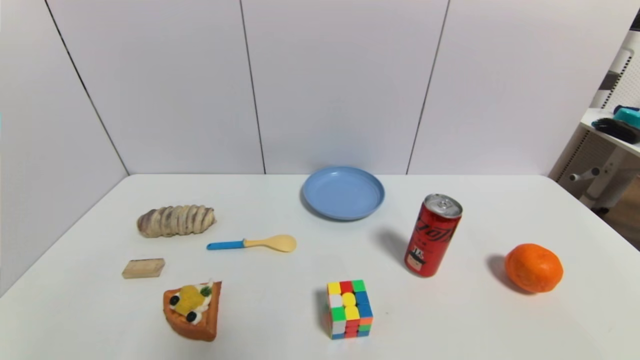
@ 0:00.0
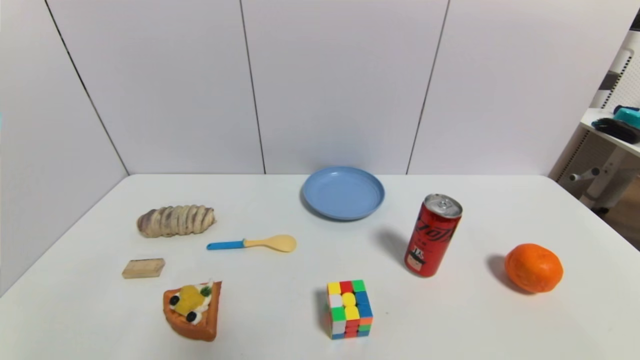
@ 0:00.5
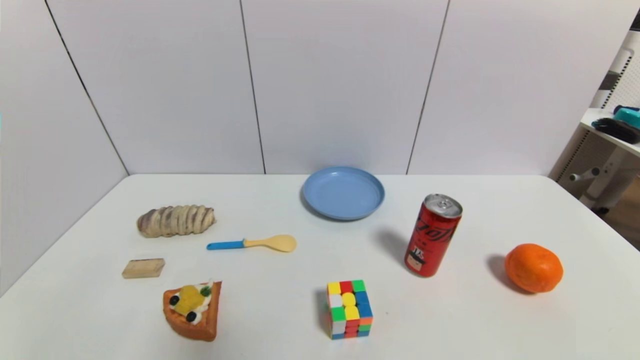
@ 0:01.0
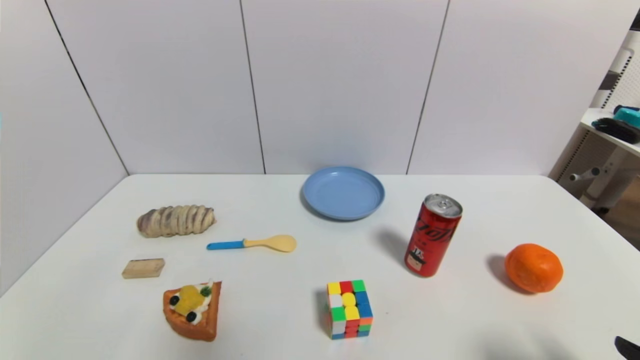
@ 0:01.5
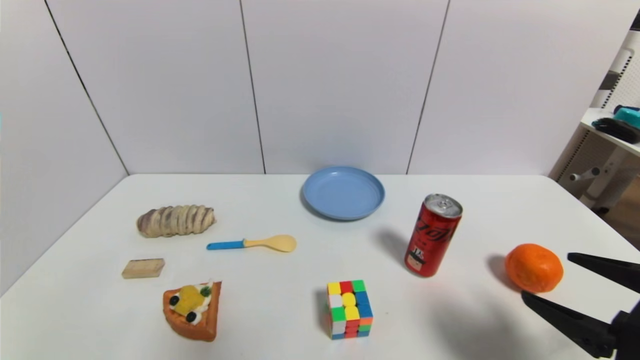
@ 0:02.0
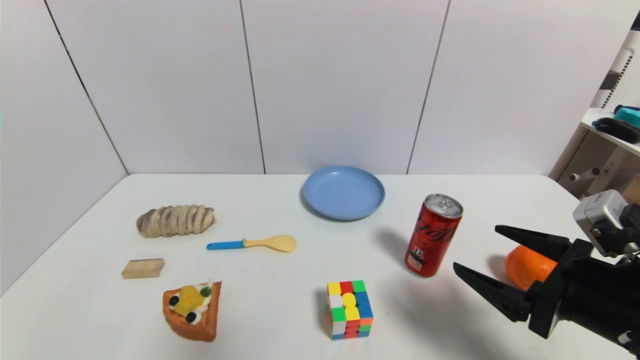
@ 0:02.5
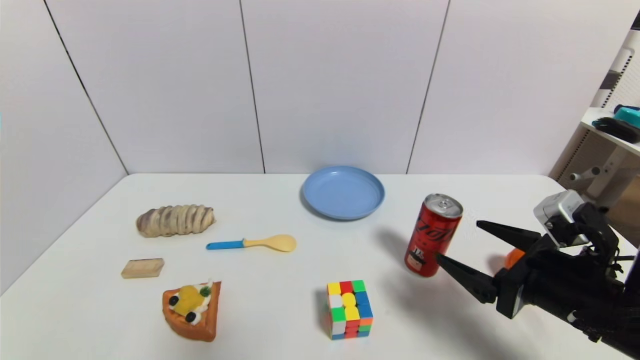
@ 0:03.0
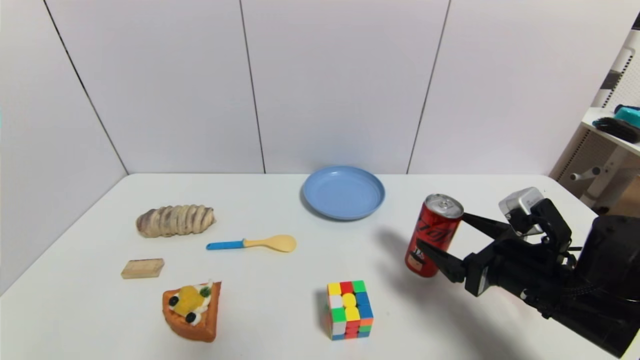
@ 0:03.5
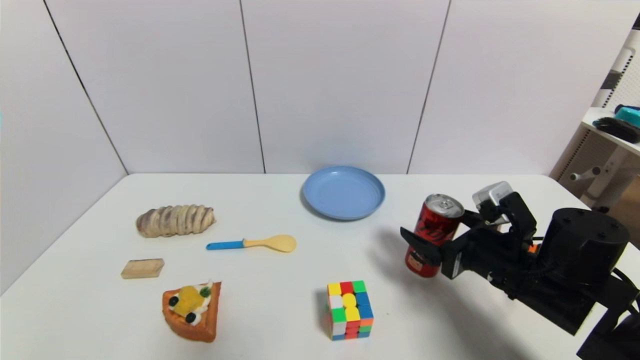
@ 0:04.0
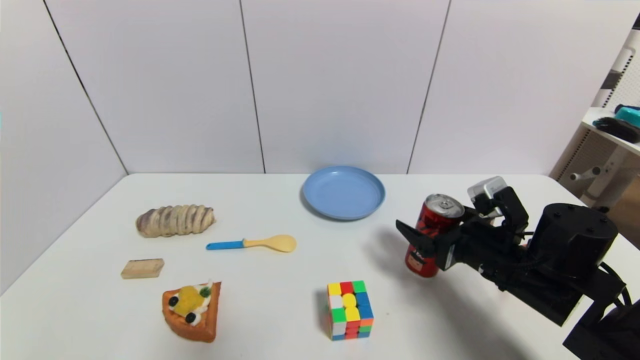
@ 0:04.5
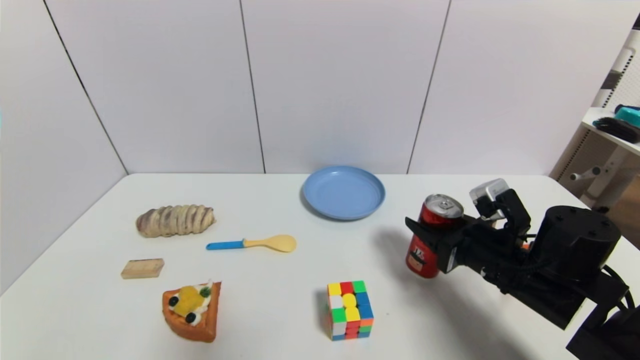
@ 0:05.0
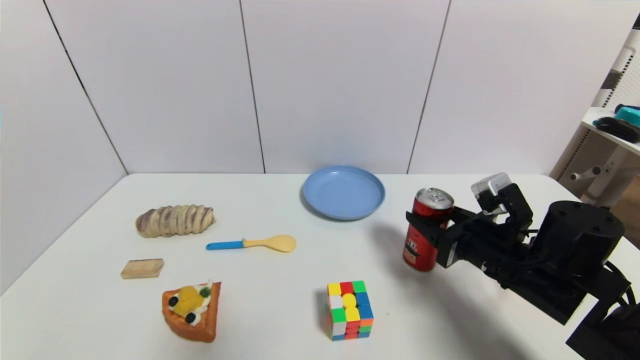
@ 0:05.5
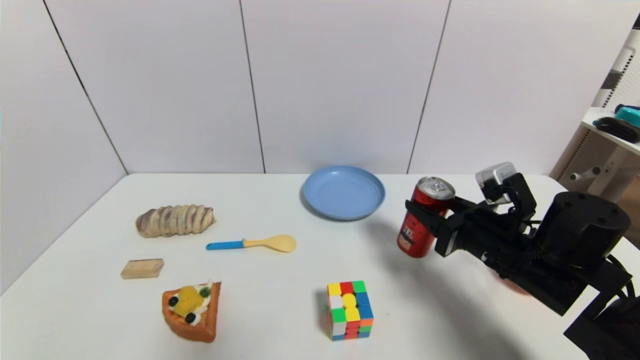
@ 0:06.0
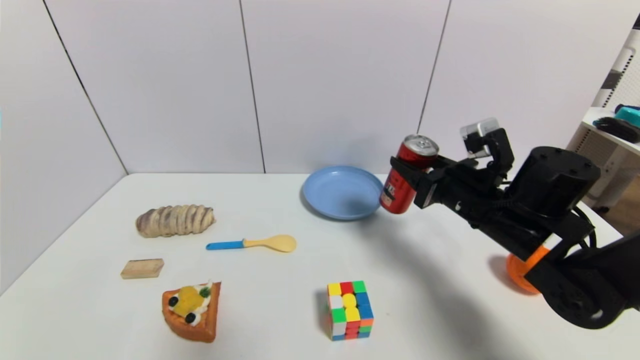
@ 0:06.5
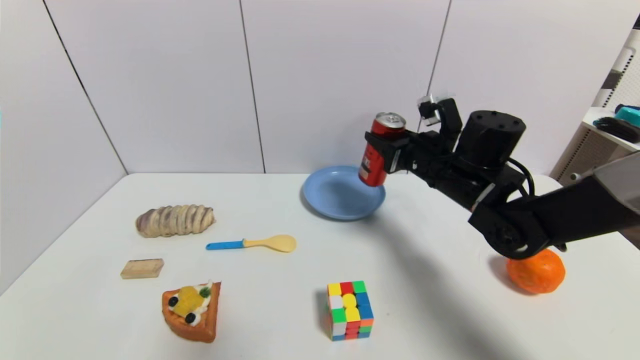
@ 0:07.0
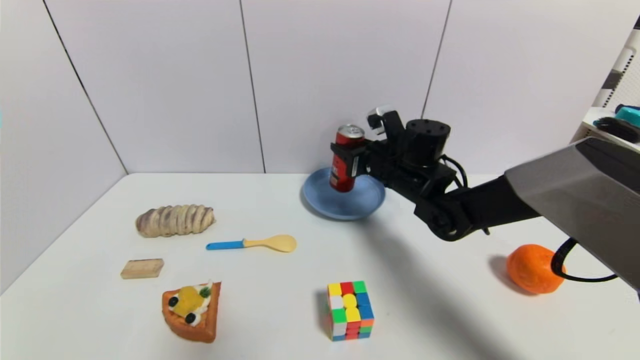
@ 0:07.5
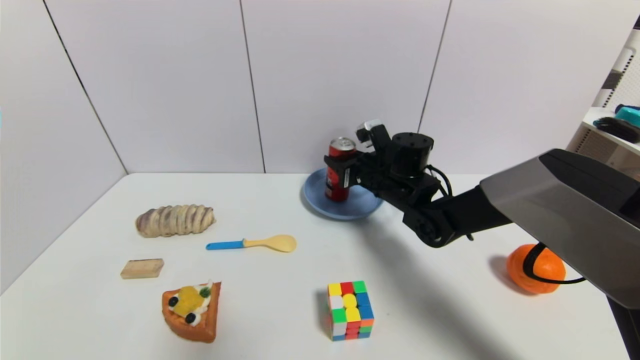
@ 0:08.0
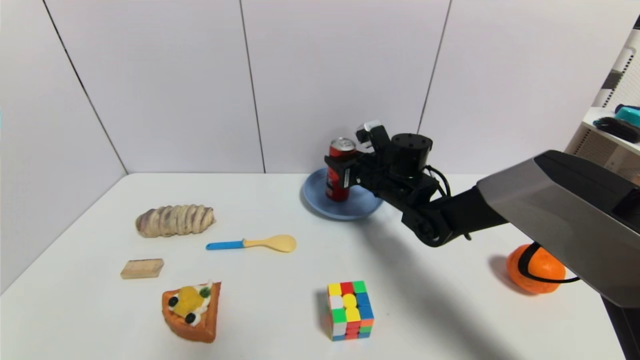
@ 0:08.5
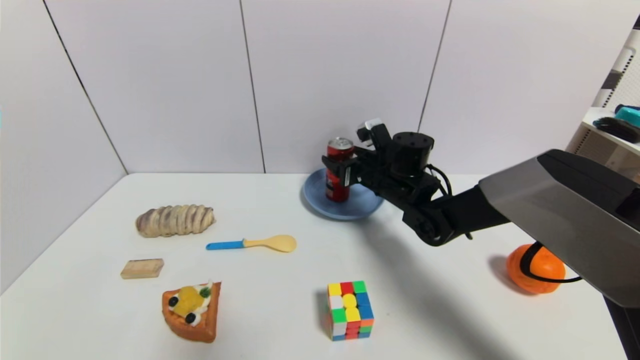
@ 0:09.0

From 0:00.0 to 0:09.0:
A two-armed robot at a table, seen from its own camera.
Task of the whole recording: use a gripper to pick the target object and place on the blue plate.
Step, from 0:00.0 to 0:05.0: Grasp the coke with the right gripper.
From 0:00.0 to 0:02.0: The right gripper moves forward and upward, about 15 cm.
From 0:02.0 to 0:04.5: The right gripper shifts about 15 cm forward, to the left and downward.
From 0:04.5 to 0:07.0: The right gripper travels forward, upward and to the left by approximately 15 cm, and closes up.
From 0:07.0 to 0:09.0: The right gripper goes approximately 10 cm to the left, downward and forward, and opens up.

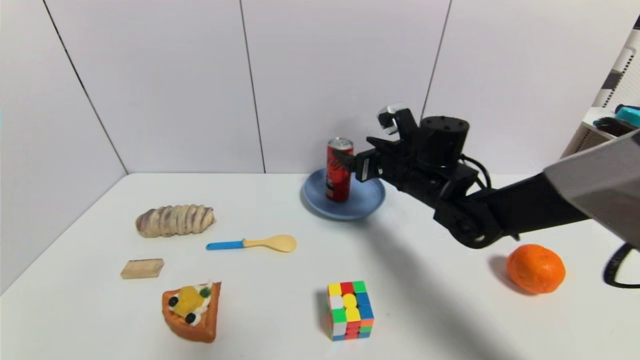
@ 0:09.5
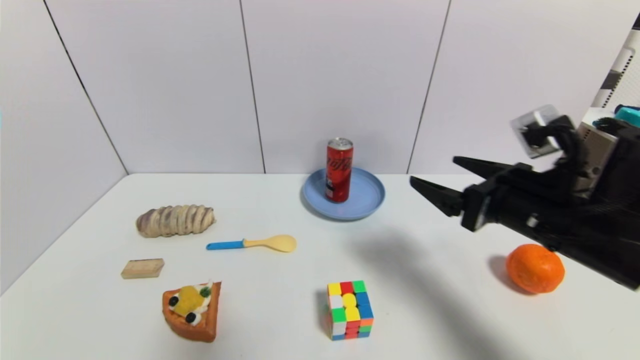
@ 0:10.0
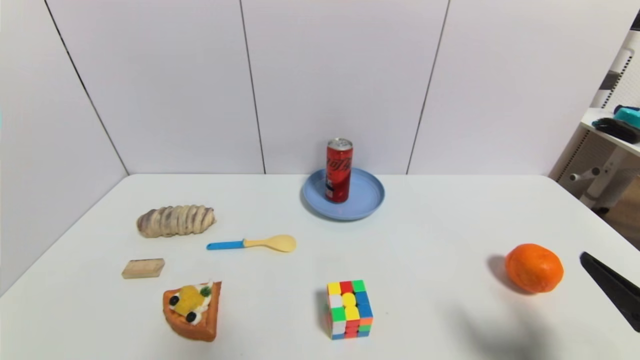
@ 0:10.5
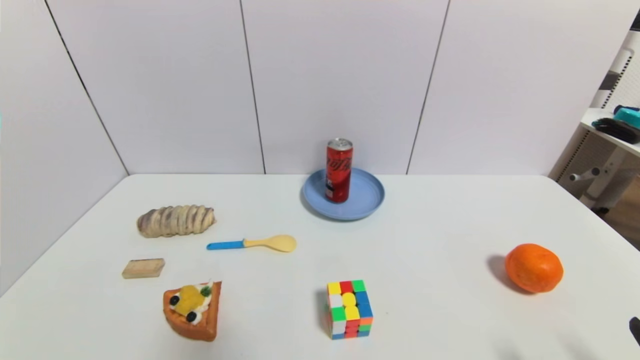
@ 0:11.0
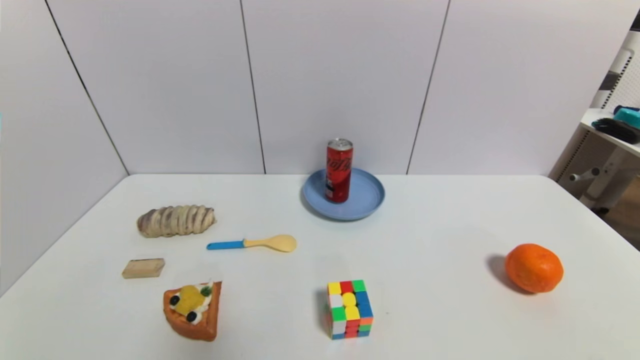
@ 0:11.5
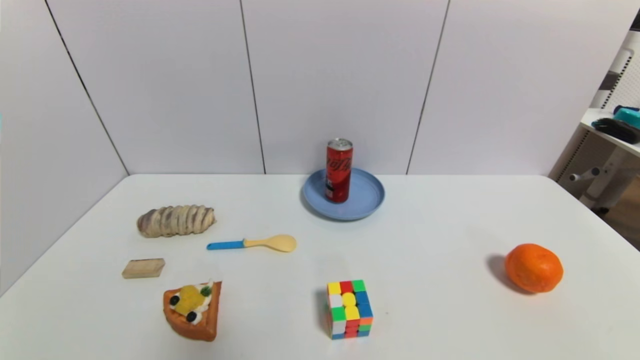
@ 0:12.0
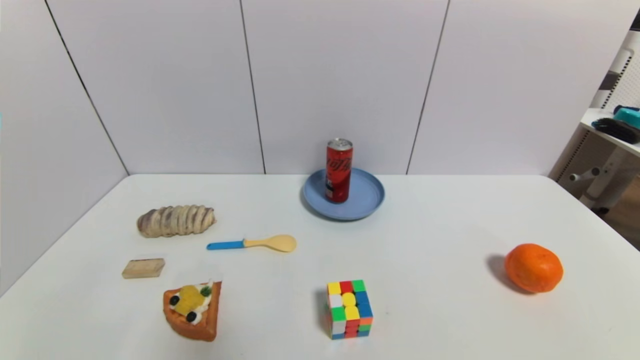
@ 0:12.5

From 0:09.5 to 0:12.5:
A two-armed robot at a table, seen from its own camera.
Task of the whole recording: use a gripper to pick the target object and place on the blue plate.
From 0:09.5 to 0:11.0: The right gripper is displaced backward and to the right by about 40 cm.

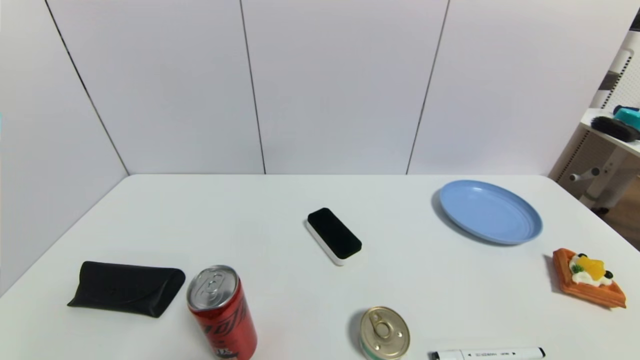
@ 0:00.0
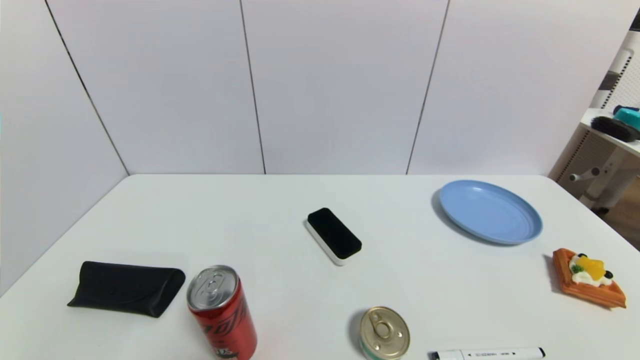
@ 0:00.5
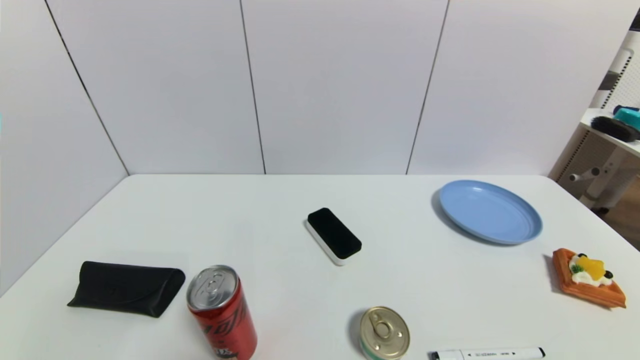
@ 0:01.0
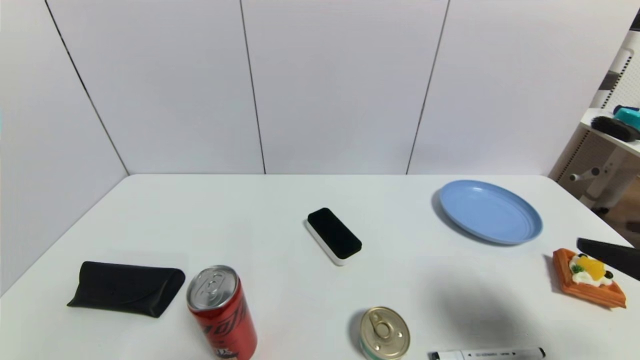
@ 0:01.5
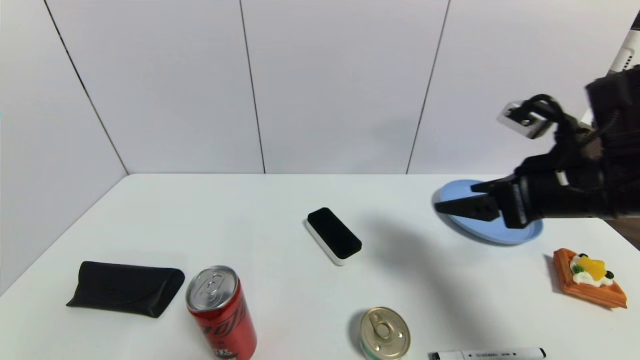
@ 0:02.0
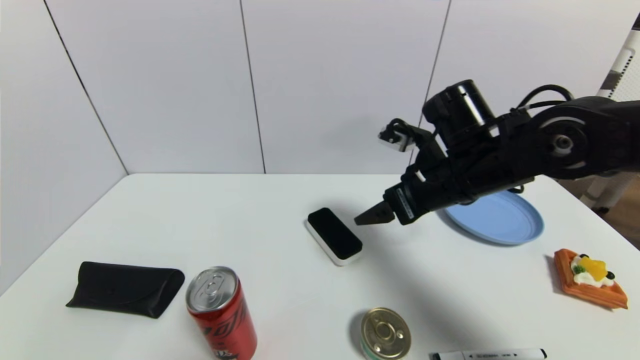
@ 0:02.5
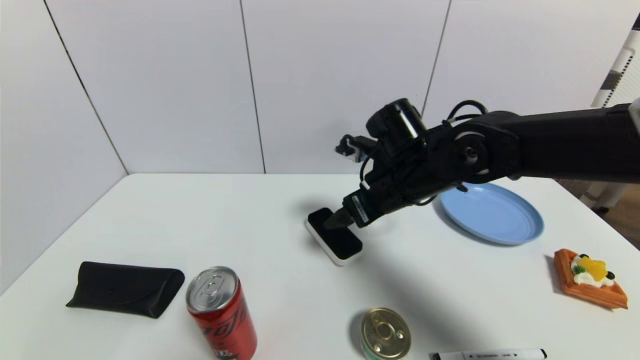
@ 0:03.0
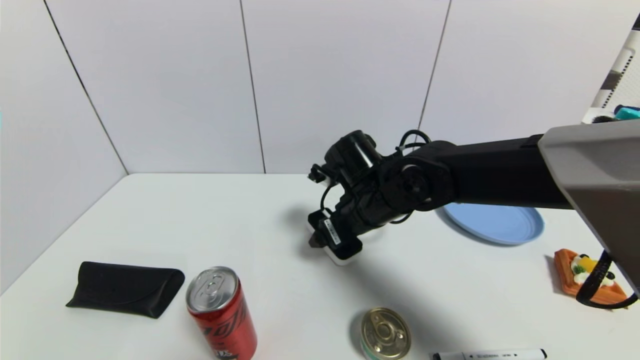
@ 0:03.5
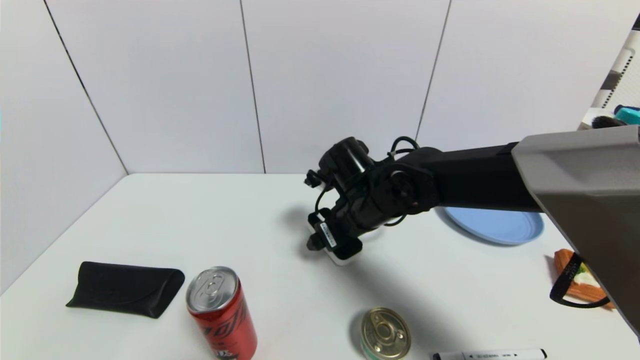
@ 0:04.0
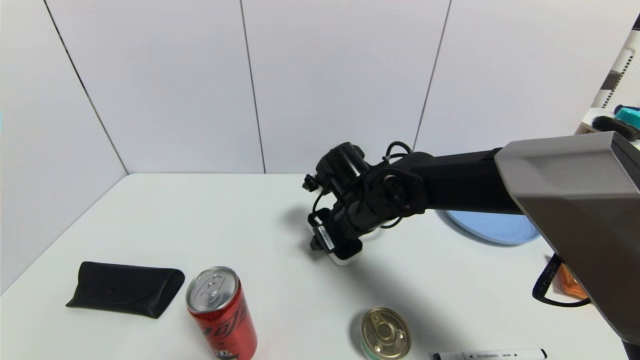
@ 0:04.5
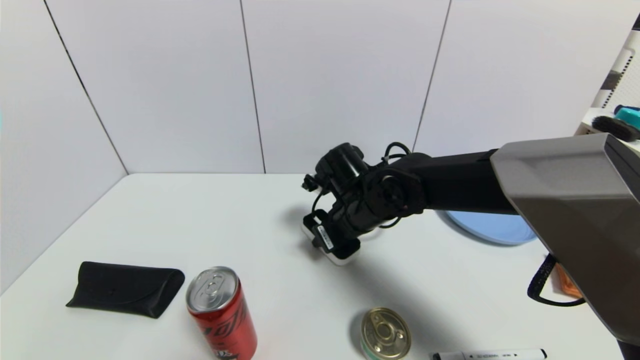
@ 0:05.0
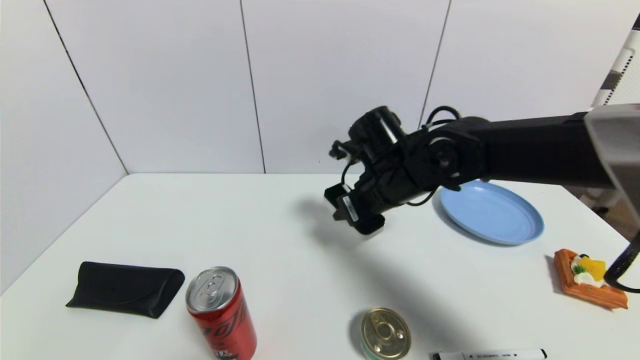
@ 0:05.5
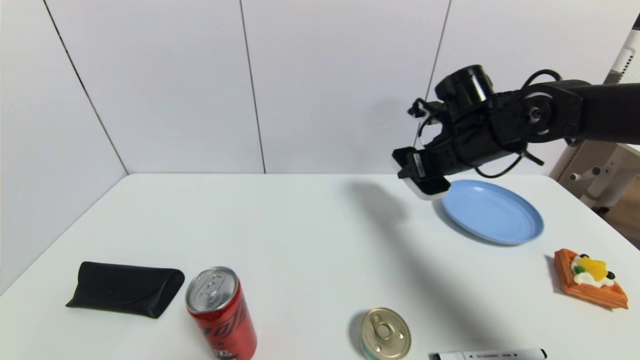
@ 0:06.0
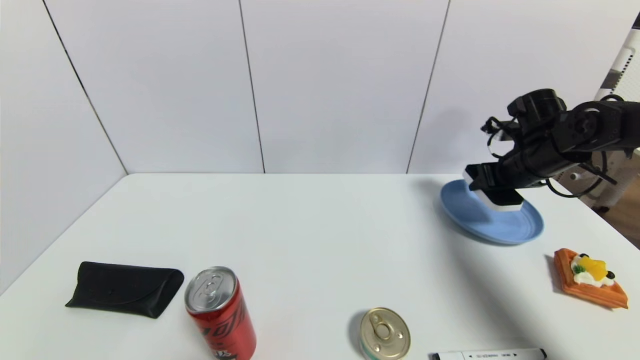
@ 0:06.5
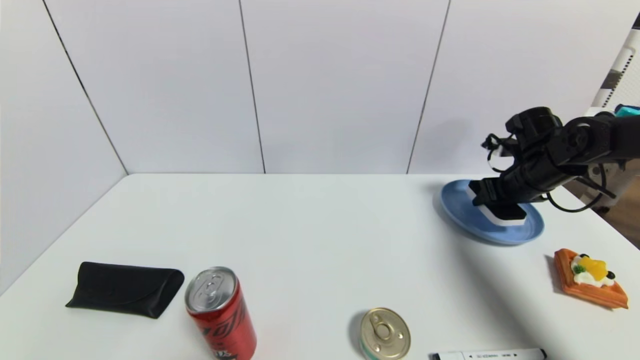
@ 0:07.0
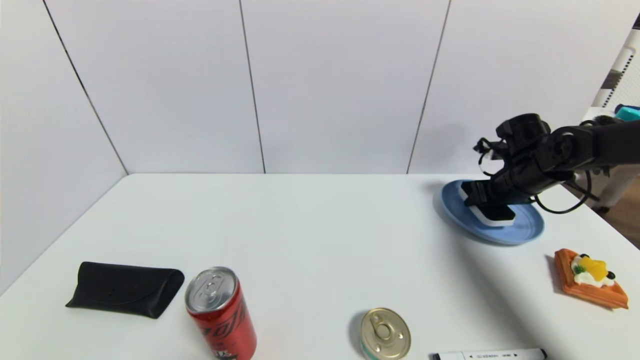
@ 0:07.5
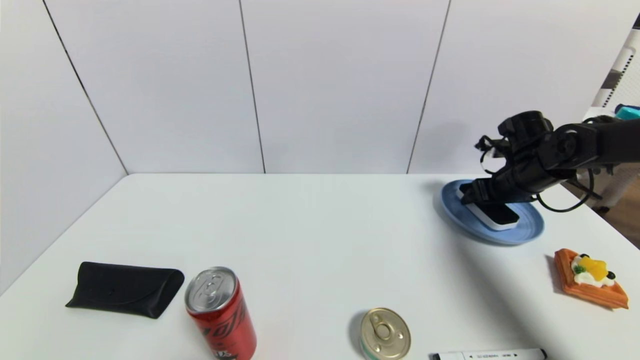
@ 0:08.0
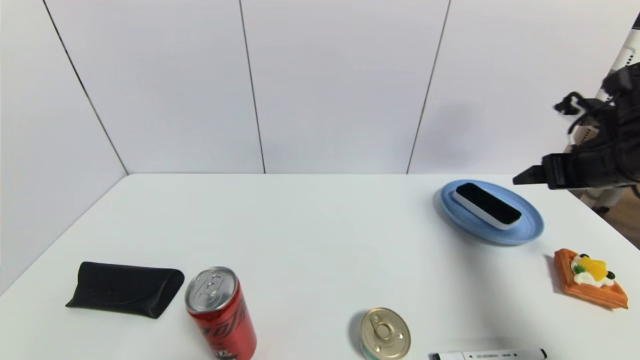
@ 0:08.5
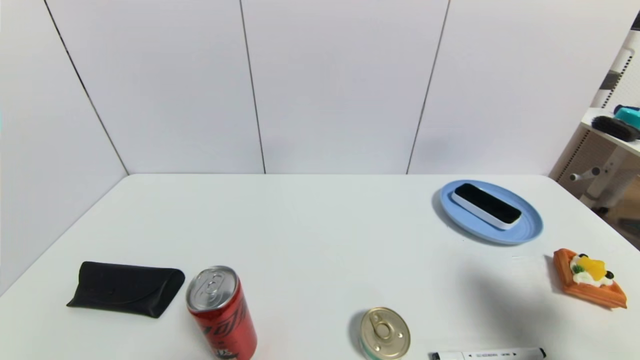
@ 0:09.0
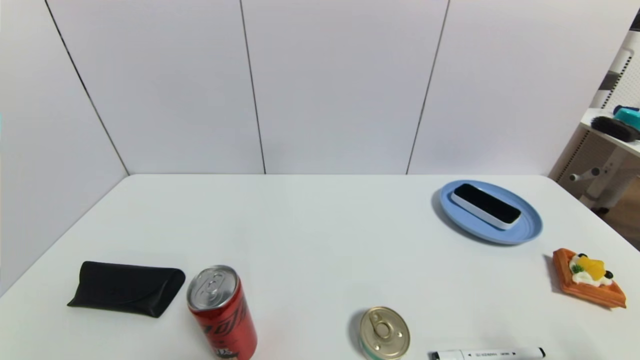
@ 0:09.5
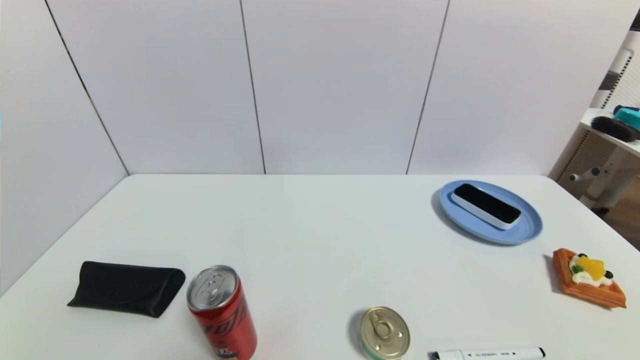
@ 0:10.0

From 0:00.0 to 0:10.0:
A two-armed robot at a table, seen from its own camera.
Task of the whole recording: use a gripper to pick the target object and place on the blue plate.
Step, from 0:00.0 to 0:04.5: Grasp the blackboard erasure with the right gripper.
Step, from 0:05.0 to 0:08.5: Place the blackboard erasure on the blue plate with the right gripper.
From 0:00.0 to 0:02.0: The right gripper shifts about 30 cm forward and upward.
From 0:02.0 to 0:04.0: The right gripper heads to the left, downward and forward, covering roughly 25 cm.
From 0:04.0 to 0:06.0: The right gripper moves to the right and upward, approximately 20 cm, and closes up.
From 0:06.0 to 0:08.0: The right gripper heads to the right and downward, covering some 15 cm, and opens its fingers.
From 0:08.0 to 0:10.0: The right gripper heads backward, covering some 40 cm.
